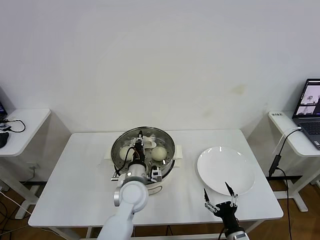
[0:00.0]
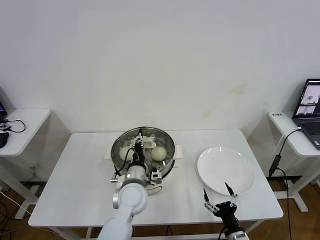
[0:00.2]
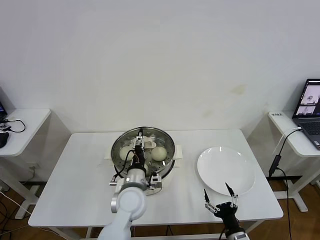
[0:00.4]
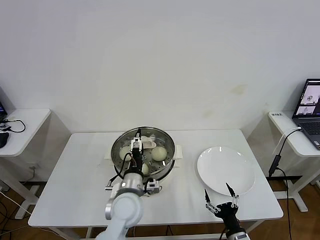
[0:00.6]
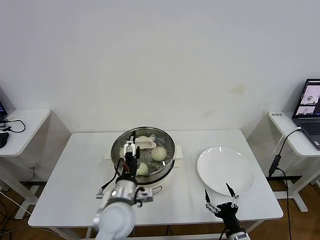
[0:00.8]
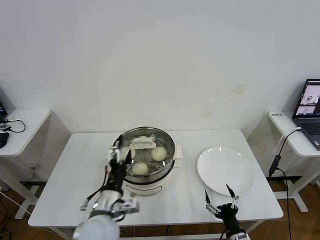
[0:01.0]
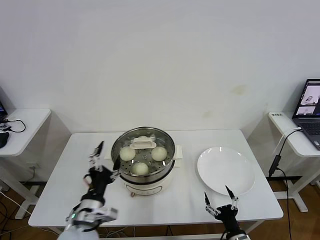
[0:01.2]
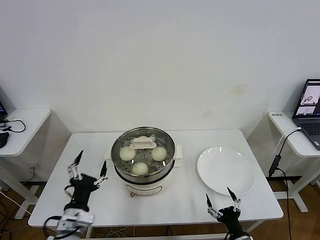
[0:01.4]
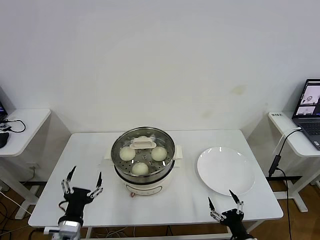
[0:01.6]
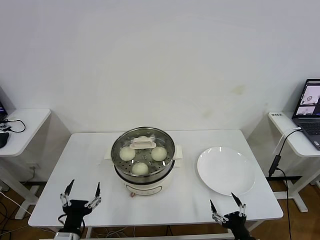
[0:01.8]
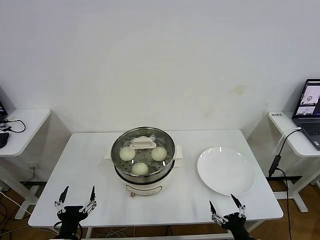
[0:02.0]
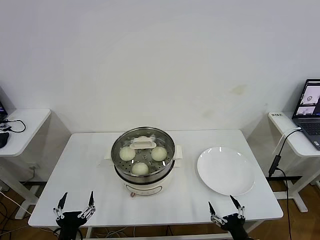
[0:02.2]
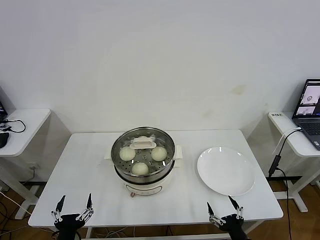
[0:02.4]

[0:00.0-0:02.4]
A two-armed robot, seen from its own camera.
Task of the whole recording: take steamed baozi put them in steamer then cover it.
0:00.0 to 0:01.2: The left gripper shifts about 15 cm backward and to the left, and opens its fingers.
0:01.2 to 0:02.4: The left gripper heads backward, downward and to the left, covering some 15 cm. Meanwhile the right gripper moves some 5 cm.
